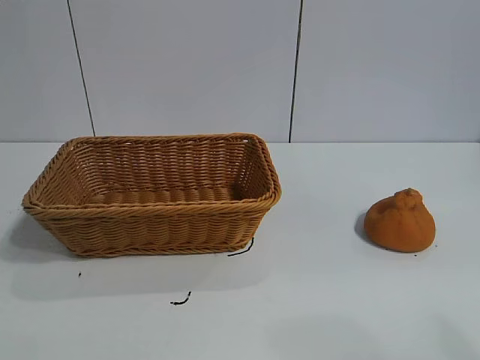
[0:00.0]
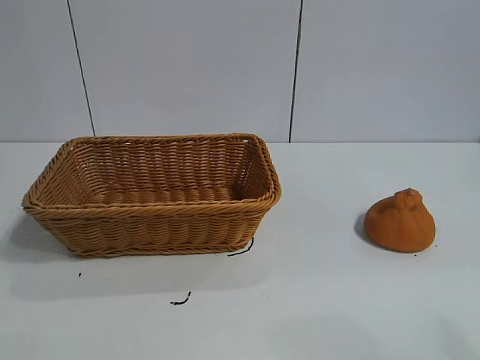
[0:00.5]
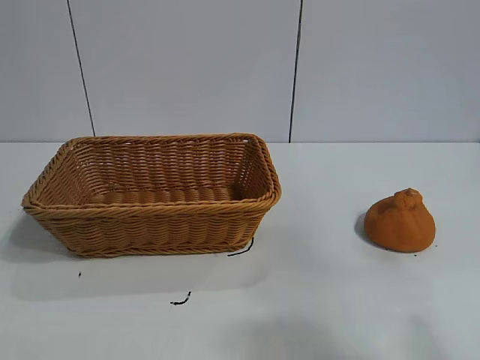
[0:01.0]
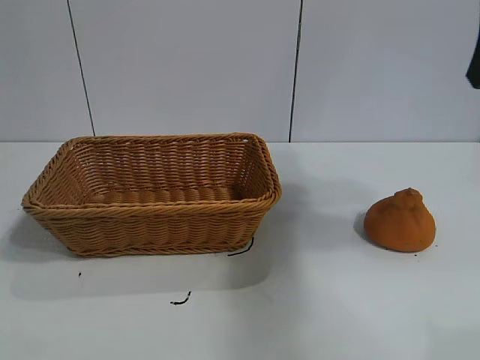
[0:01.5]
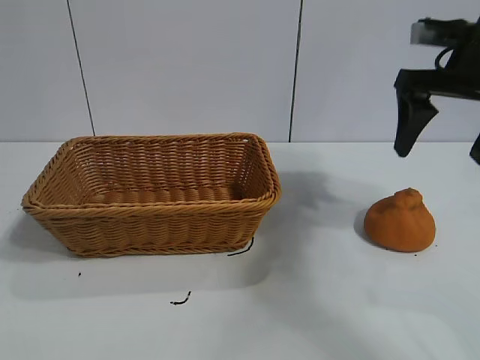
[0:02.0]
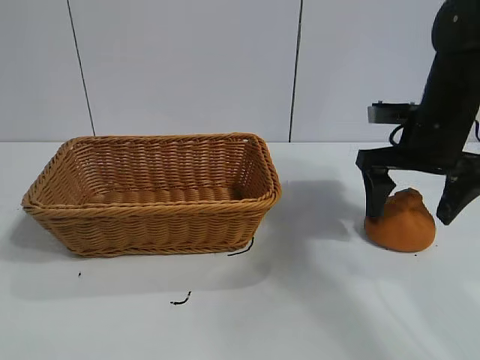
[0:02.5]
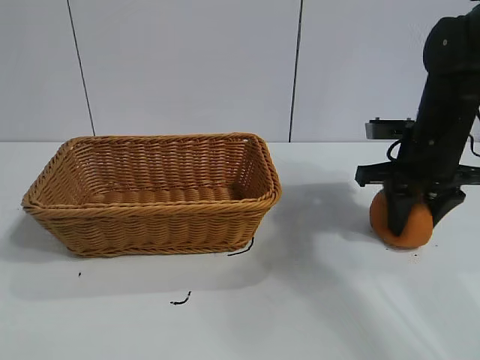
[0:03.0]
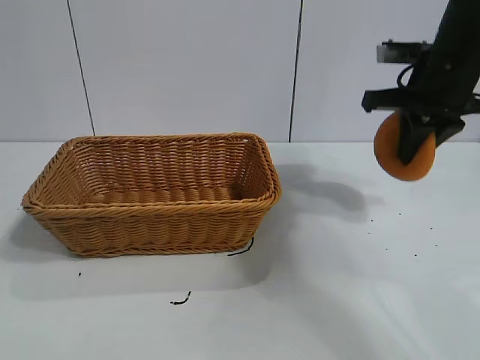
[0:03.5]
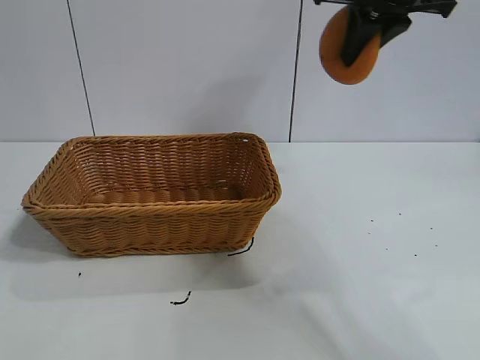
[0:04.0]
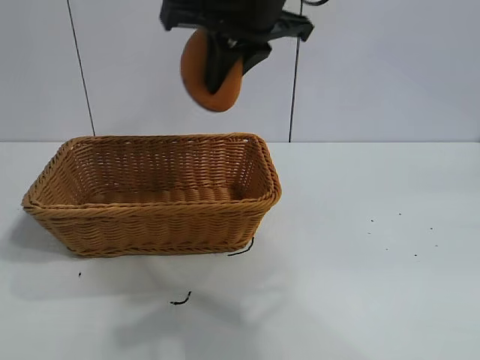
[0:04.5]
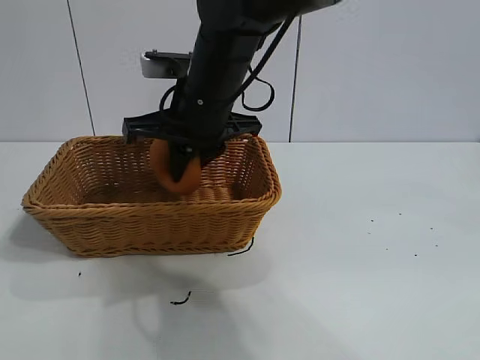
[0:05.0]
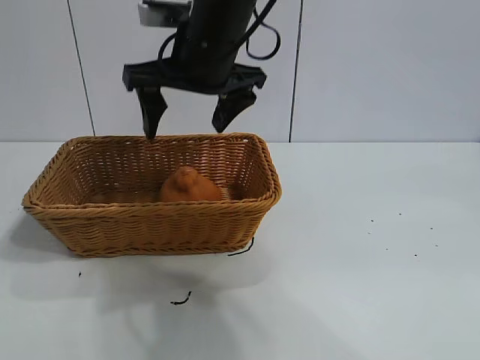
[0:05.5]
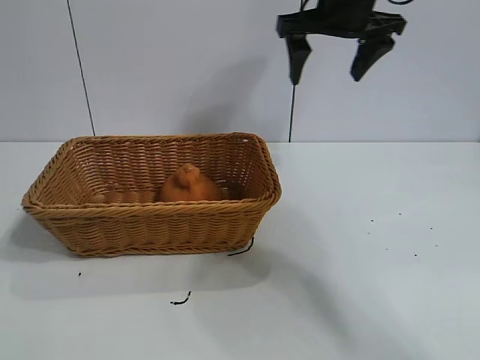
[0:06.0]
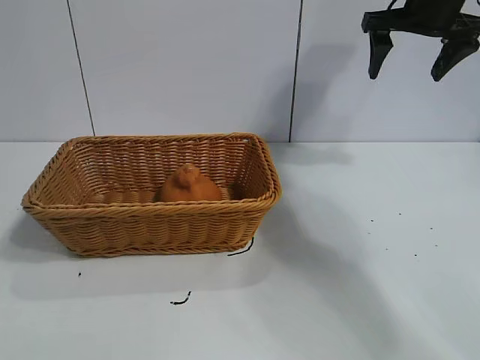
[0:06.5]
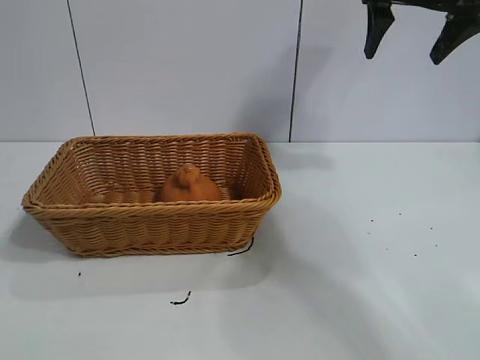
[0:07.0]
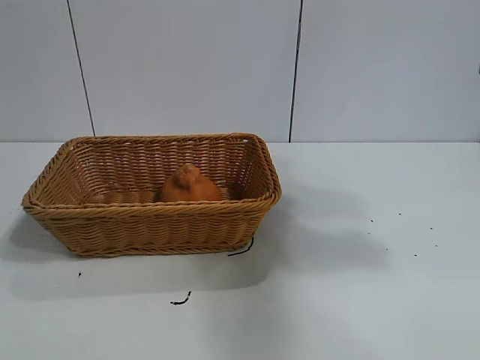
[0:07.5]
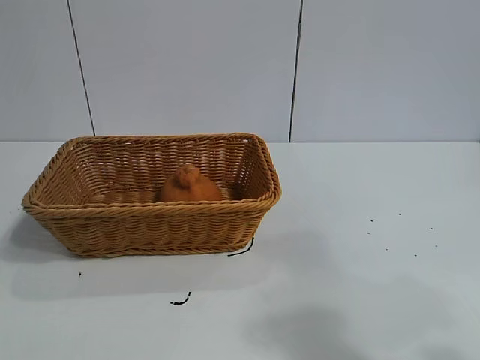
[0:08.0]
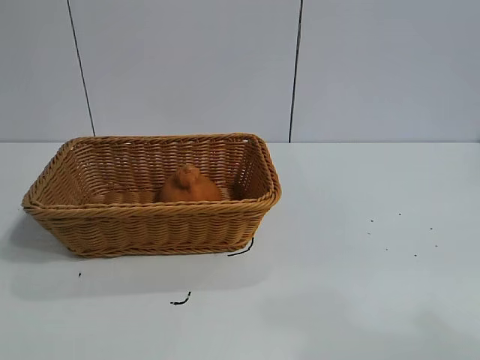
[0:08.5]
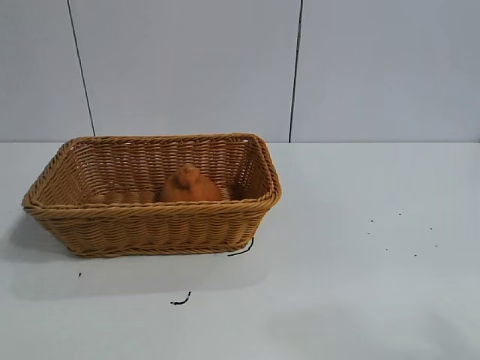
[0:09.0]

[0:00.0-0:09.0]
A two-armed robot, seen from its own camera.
Task of the whole recording: pick up the orange and put it into the basket.
Step, 0:01.0 to 0:03.0: Grasp the orange with right gripper.
Step, 0:03.5 to 0:05.0: Place the orange in the basket with right gripper.

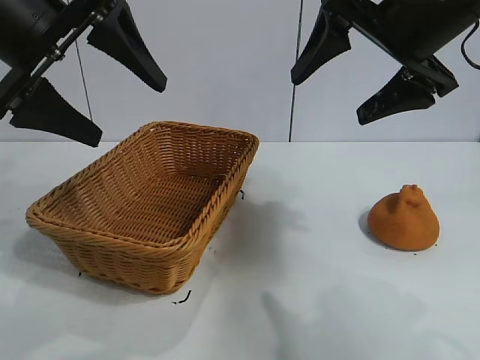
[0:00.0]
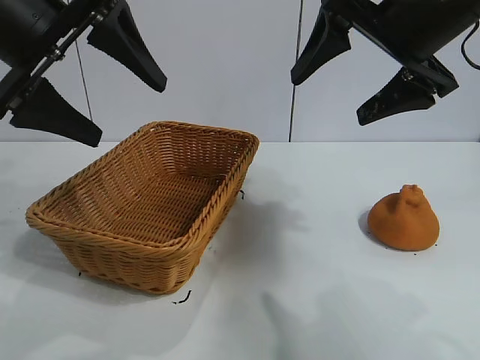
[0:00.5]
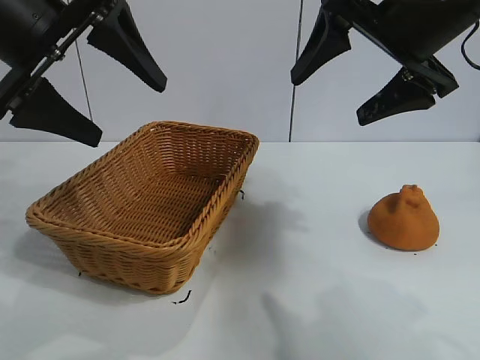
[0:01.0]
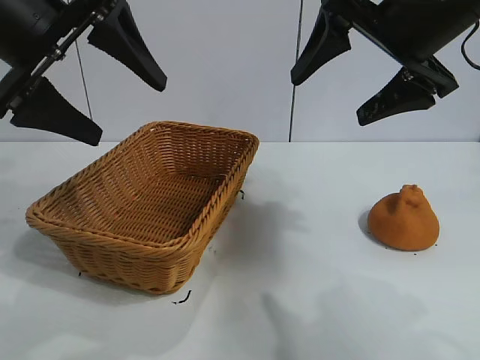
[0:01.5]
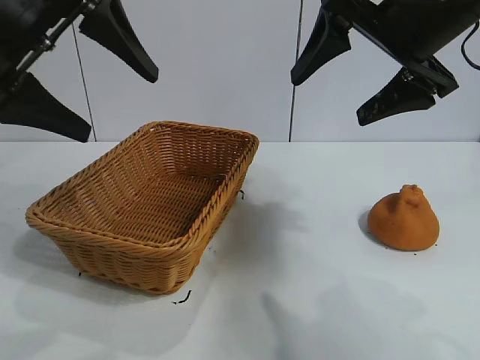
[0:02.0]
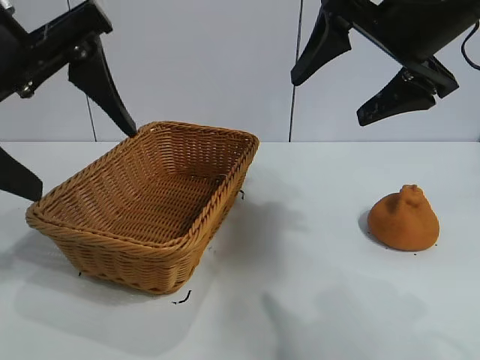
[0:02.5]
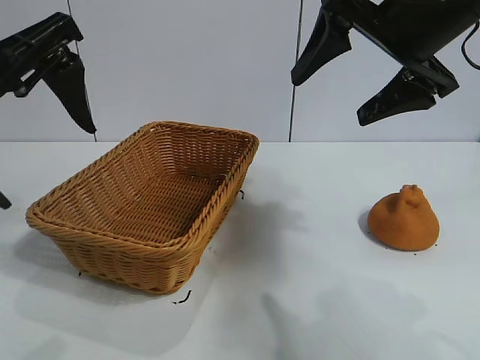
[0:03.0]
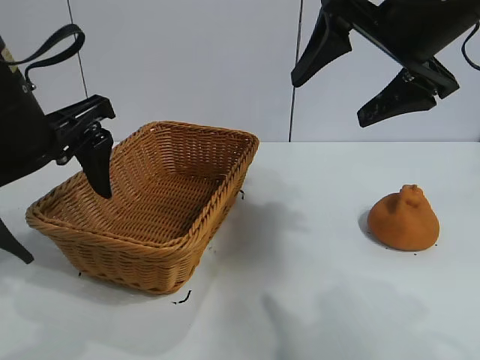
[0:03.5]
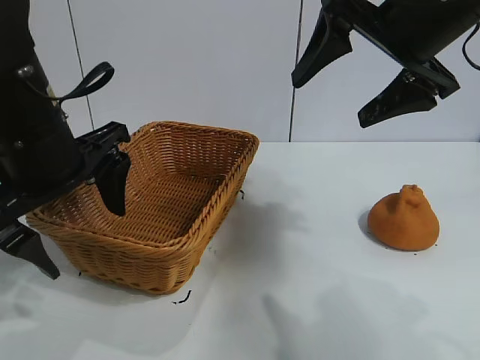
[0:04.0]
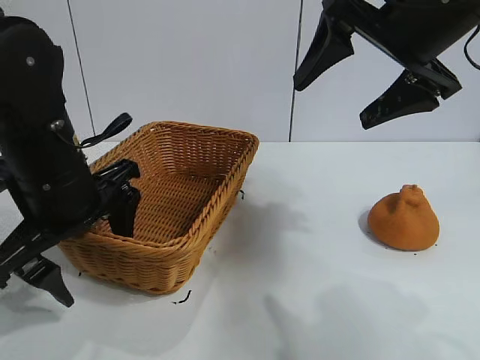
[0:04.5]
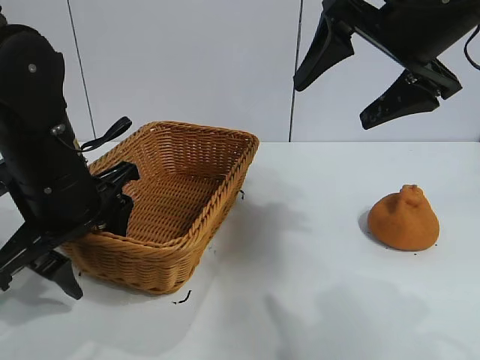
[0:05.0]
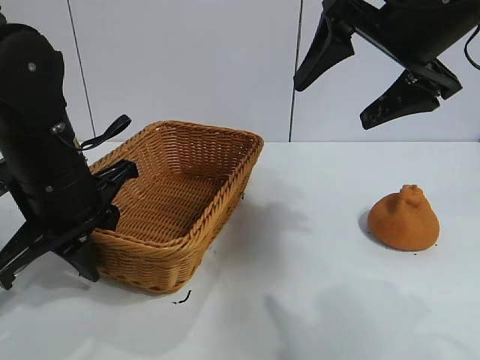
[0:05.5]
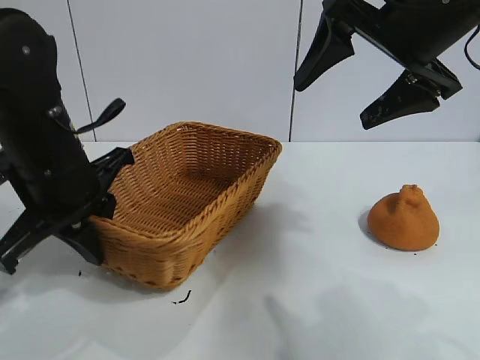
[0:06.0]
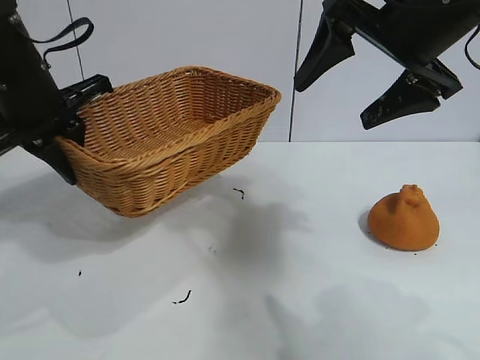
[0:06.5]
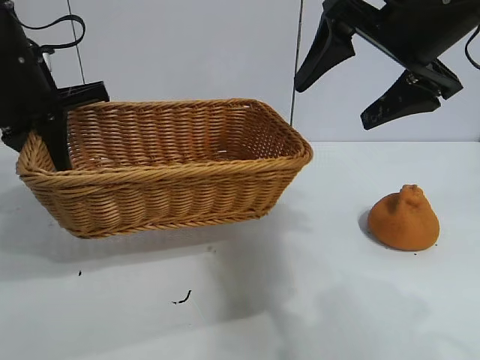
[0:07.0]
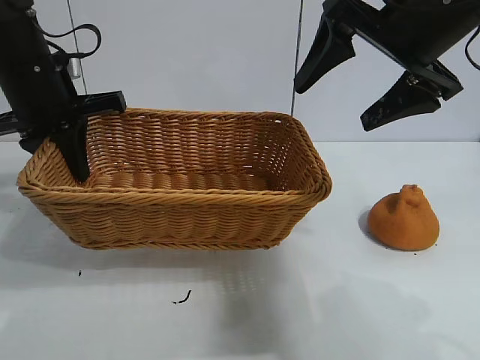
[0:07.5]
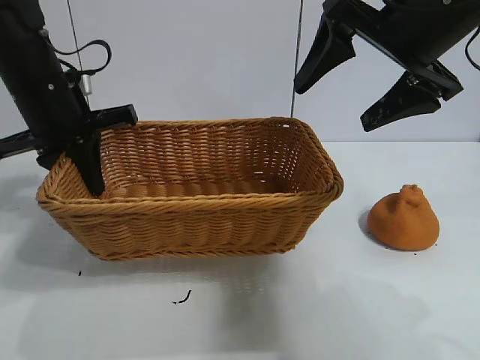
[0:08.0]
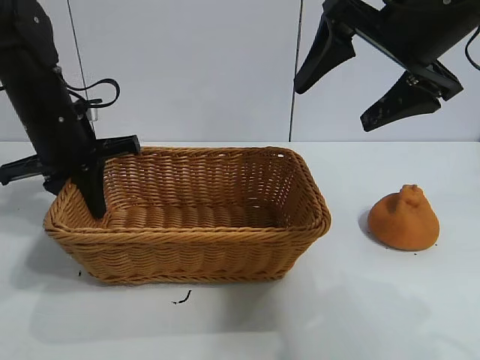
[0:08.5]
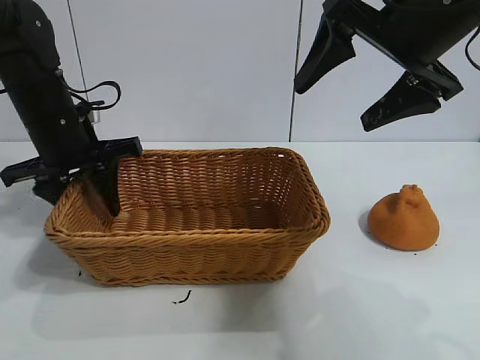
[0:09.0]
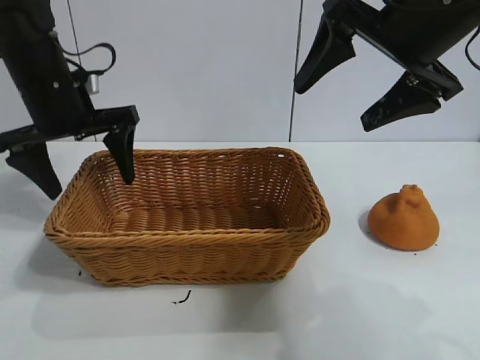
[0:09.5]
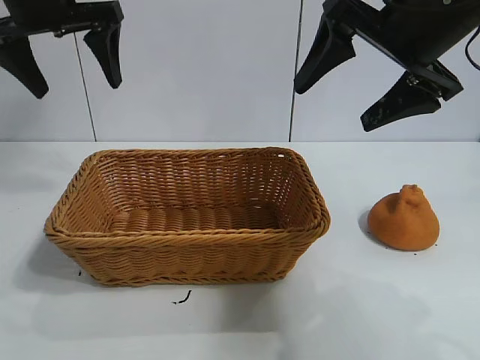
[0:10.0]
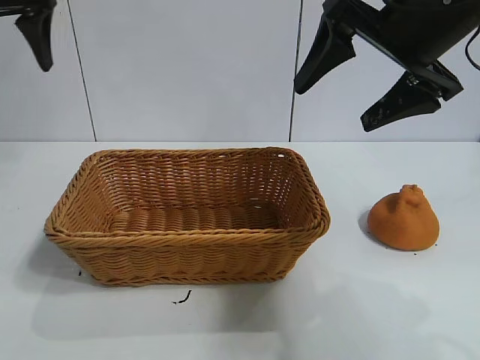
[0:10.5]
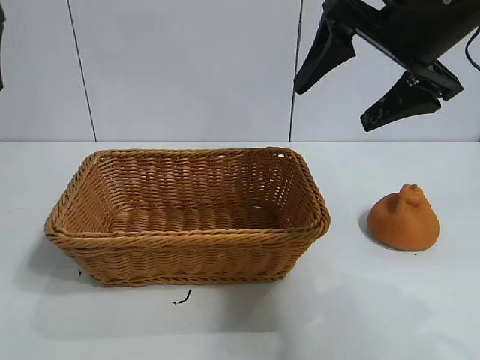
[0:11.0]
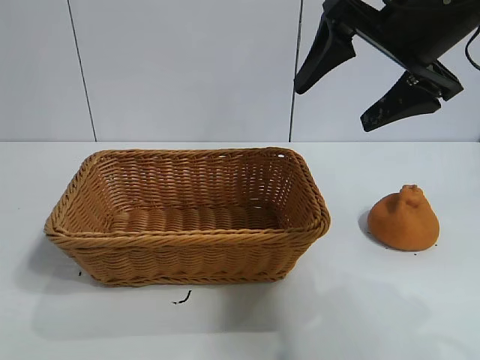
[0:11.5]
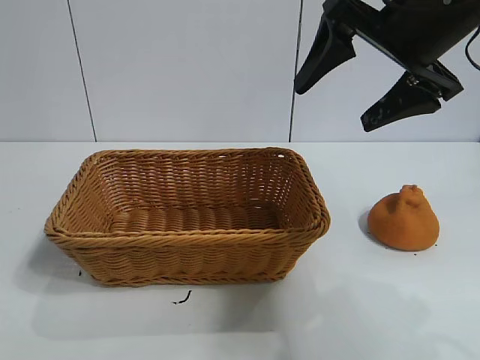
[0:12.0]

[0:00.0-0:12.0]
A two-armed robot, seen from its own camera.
Task of the whole recording: pick up the orange and put it into the basket.
Step, 0:02.0 to 0:05.5: Grasp the basket with left gripper.
Step, 0:06.0 to 0:09.0: Place the basket in the center of view with left gripper.

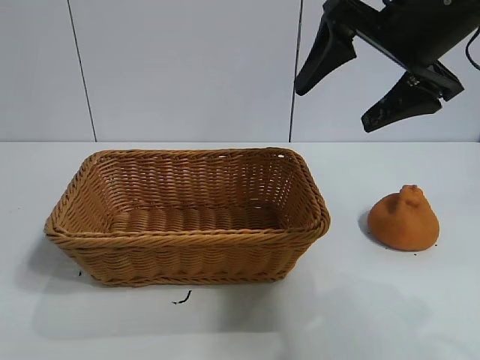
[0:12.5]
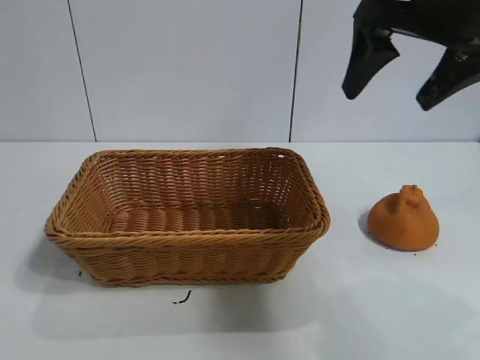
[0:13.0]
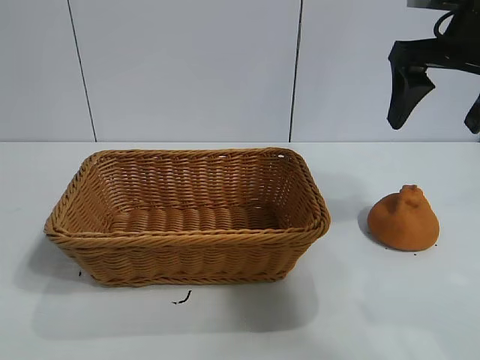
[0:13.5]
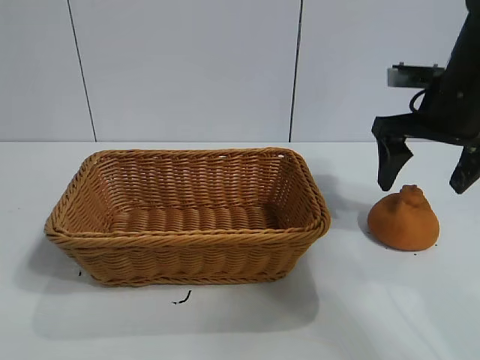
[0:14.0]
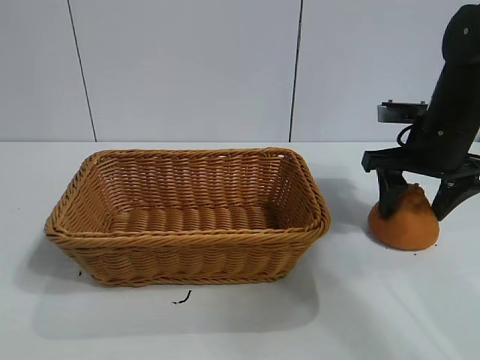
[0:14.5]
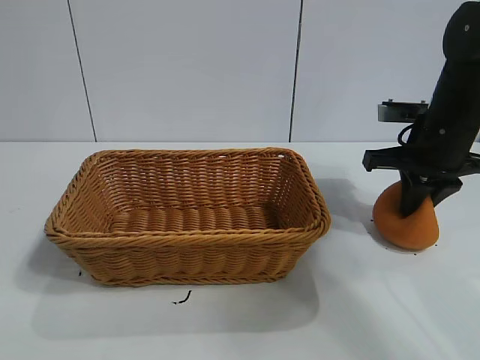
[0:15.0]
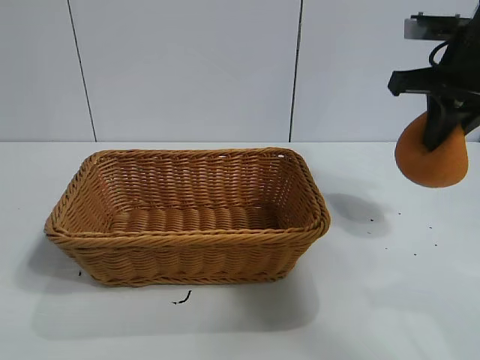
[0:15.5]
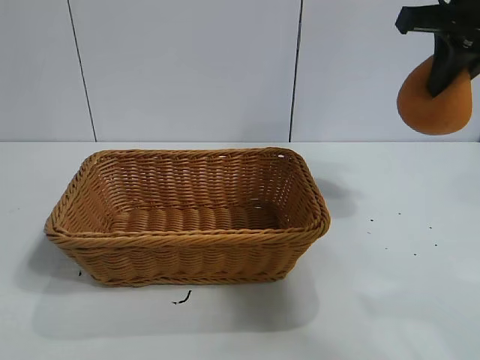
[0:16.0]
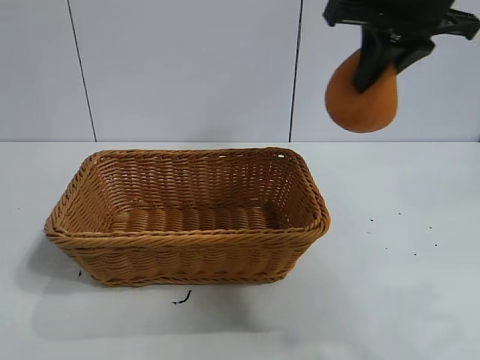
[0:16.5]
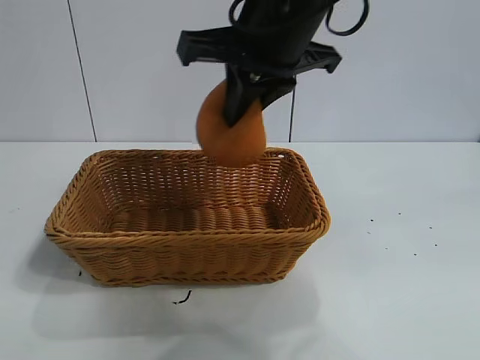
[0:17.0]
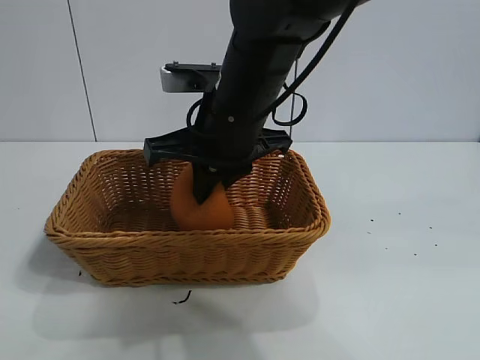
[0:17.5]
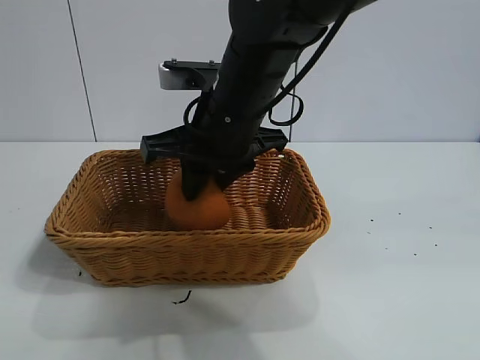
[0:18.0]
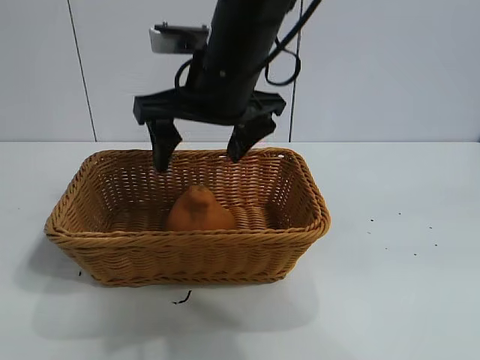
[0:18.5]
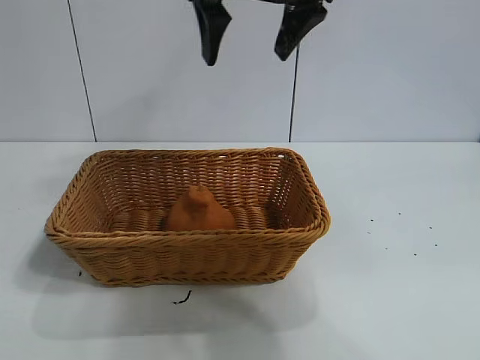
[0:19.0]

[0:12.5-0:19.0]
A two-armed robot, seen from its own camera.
Task of the whole recording: pick up the orange and put it into the basket.
Step, 0:12.5 to 0:15.0: Grasp the orange with right gripper.
Step, 0:15.5 to 0:18.0: Place the orange in the basket with right gripper.
